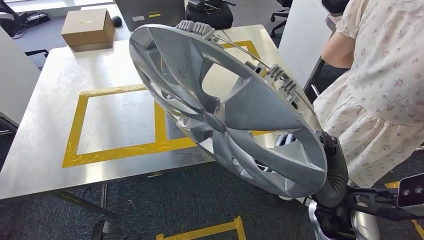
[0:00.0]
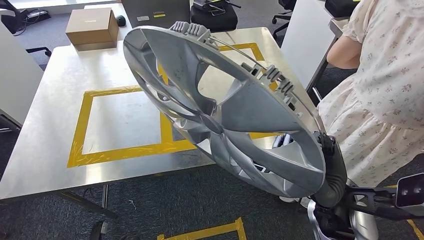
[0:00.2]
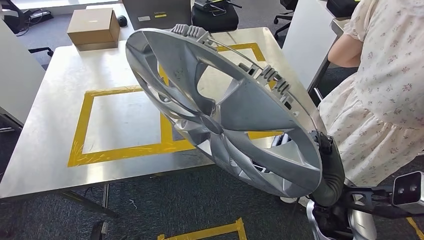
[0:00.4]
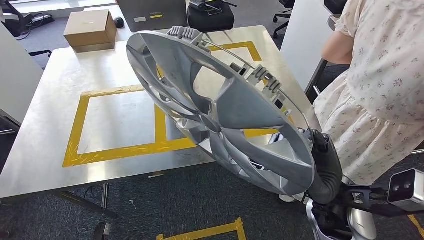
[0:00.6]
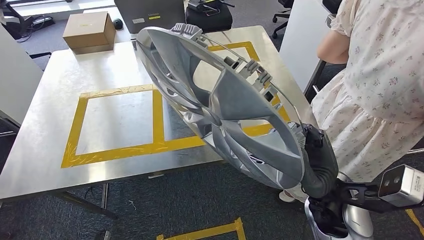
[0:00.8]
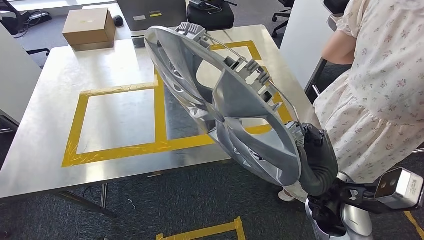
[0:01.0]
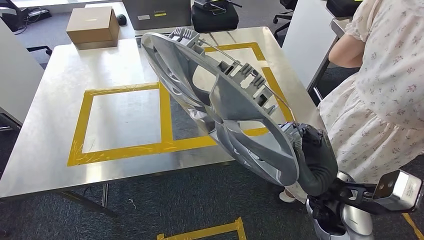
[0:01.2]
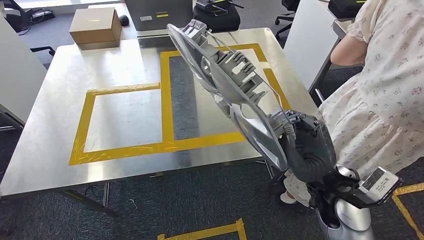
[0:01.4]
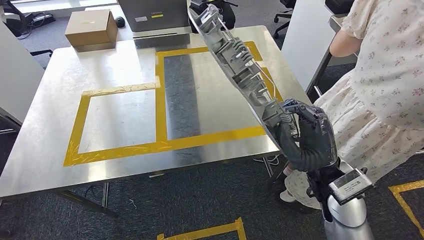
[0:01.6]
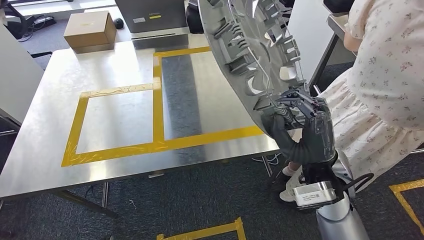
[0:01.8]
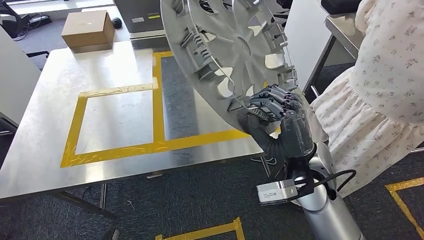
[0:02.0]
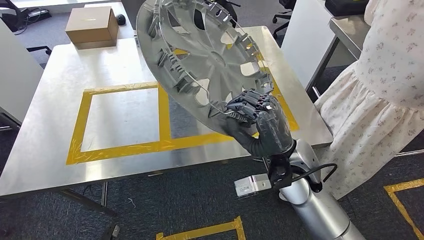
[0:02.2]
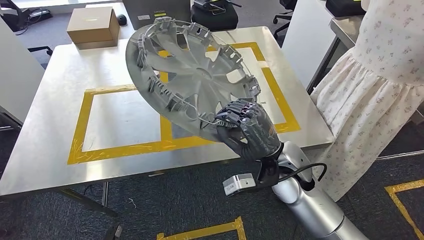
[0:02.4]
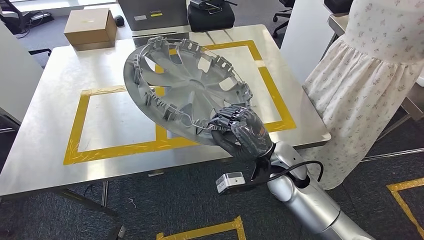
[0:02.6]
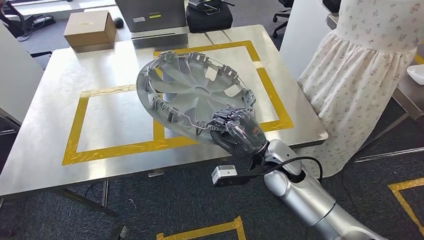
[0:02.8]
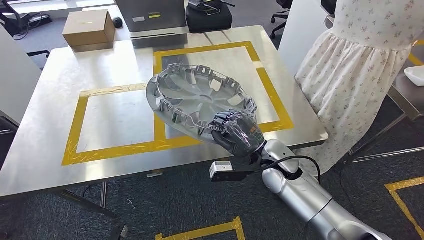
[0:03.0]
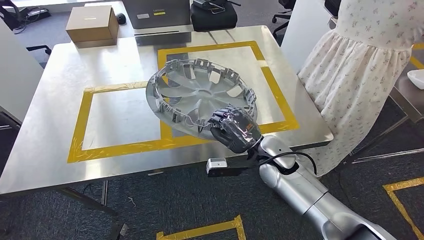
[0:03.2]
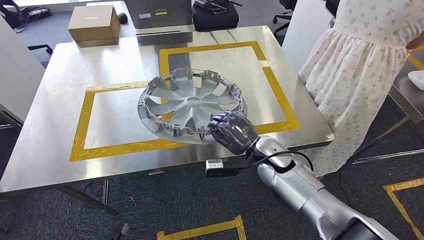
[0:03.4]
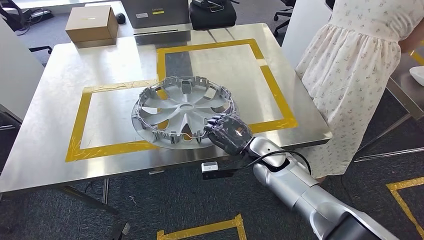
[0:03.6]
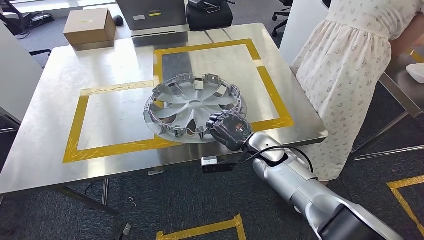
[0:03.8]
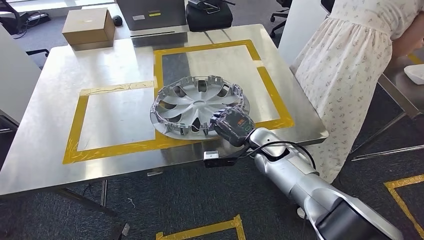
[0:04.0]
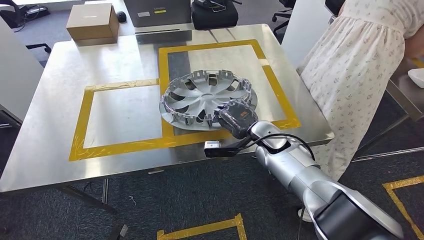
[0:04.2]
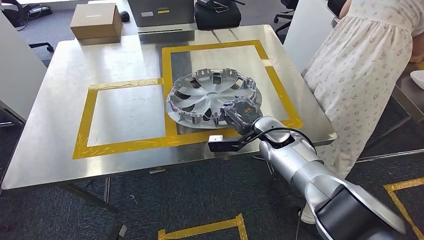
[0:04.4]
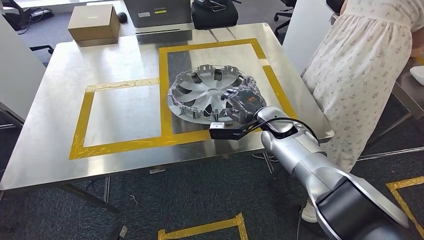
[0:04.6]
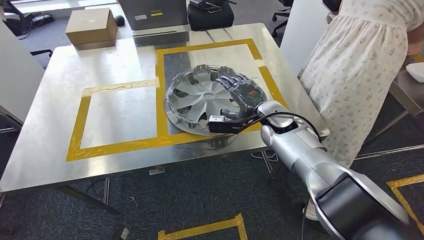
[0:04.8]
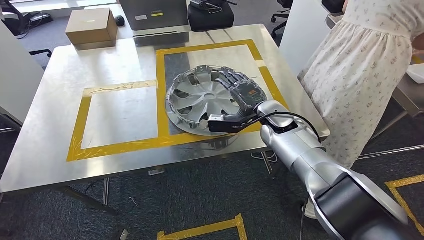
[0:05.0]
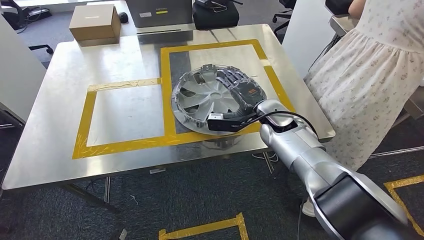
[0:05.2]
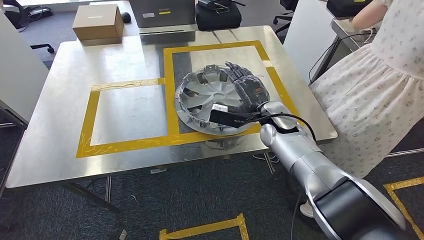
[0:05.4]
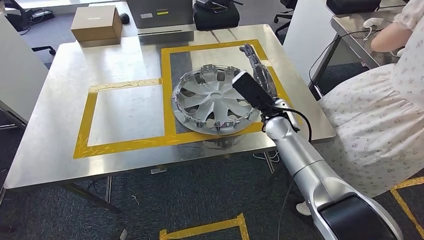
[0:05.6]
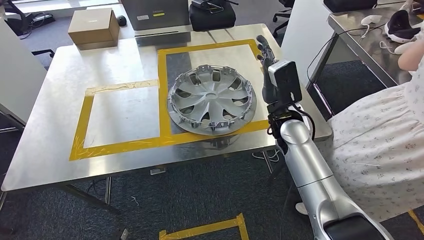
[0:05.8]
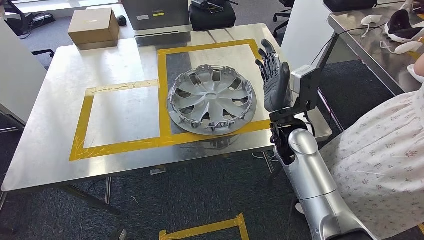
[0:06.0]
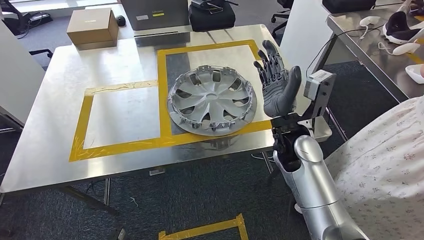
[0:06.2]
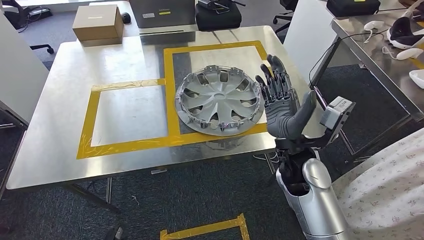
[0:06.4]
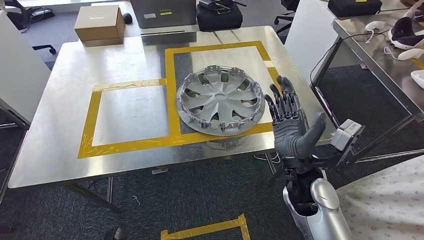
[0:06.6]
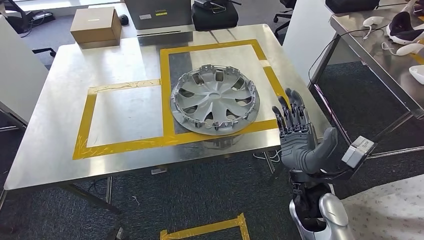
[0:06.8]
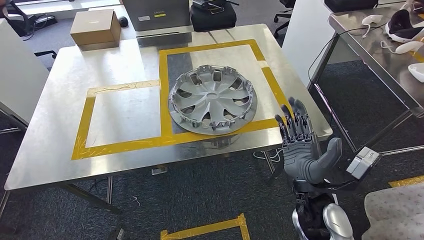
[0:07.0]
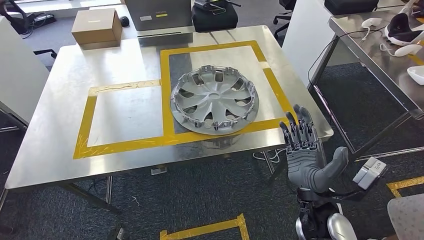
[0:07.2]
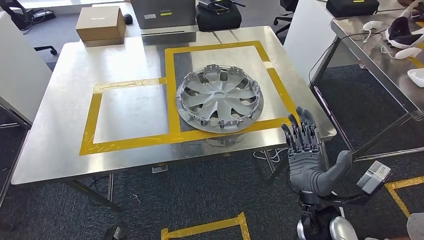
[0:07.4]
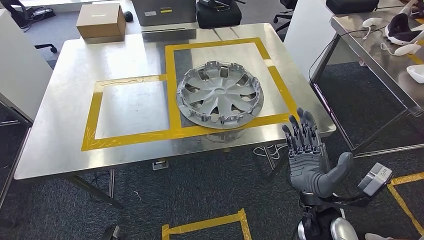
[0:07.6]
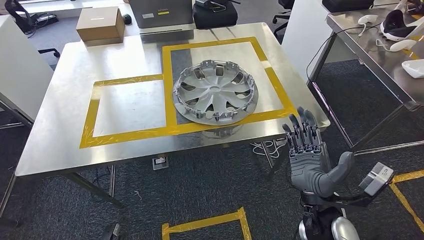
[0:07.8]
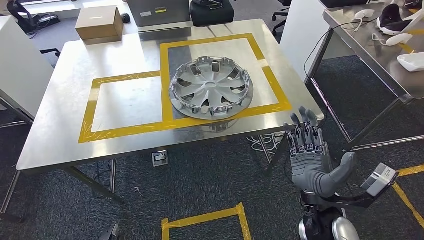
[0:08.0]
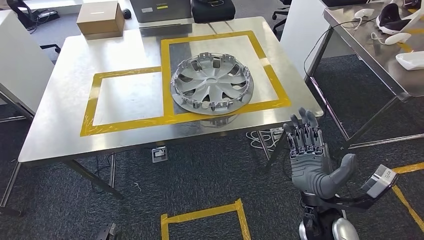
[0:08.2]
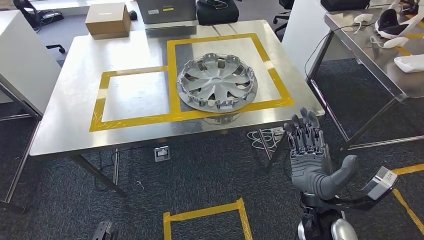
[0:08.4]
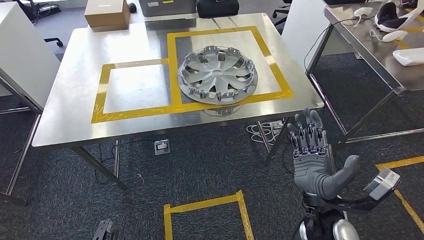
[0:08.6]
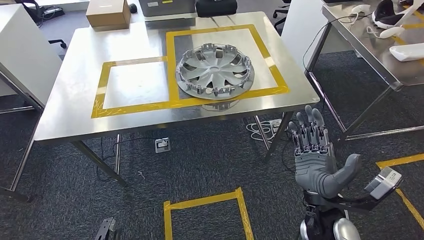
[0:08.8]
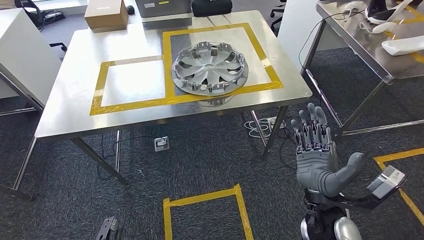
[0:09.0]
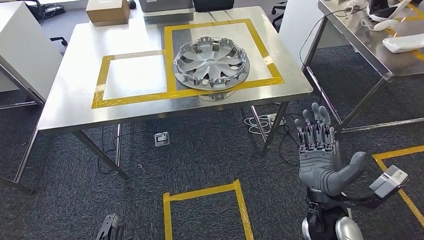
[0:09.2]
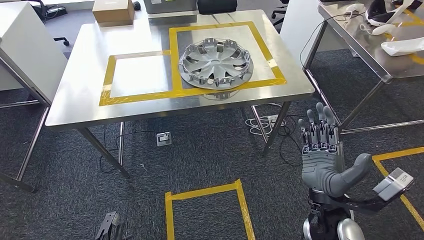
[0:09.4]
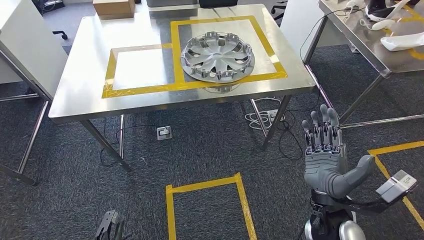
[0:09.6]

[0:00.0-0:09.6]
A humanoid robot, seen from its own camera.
Step, 0:01.2 to 0:07.4: Insert the small component into the corresponding slot on the workbench.

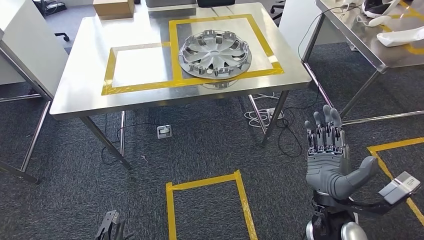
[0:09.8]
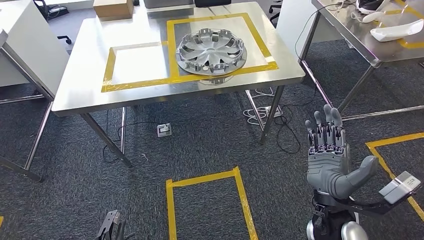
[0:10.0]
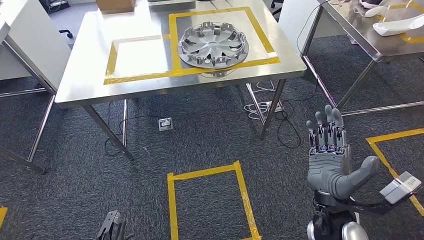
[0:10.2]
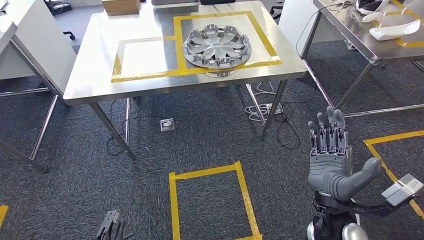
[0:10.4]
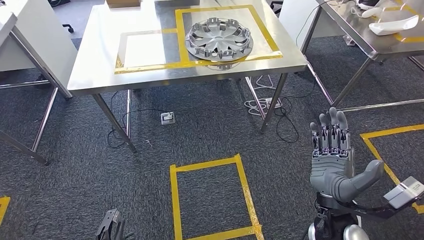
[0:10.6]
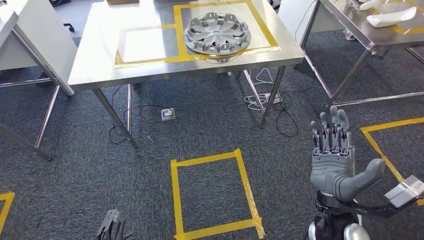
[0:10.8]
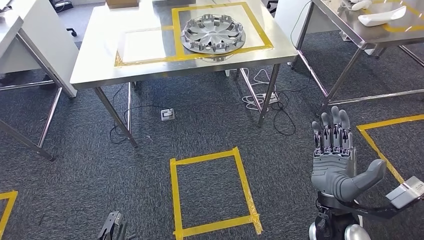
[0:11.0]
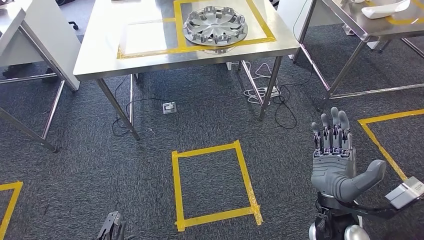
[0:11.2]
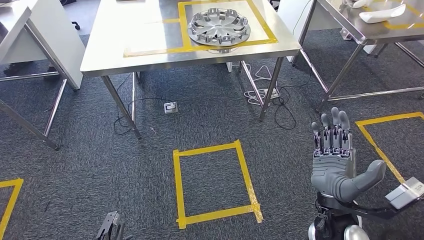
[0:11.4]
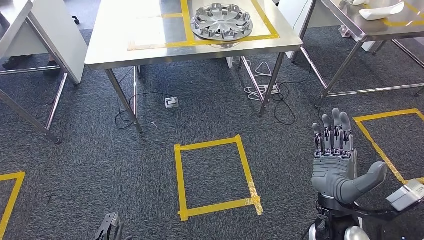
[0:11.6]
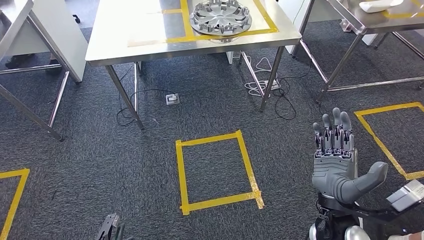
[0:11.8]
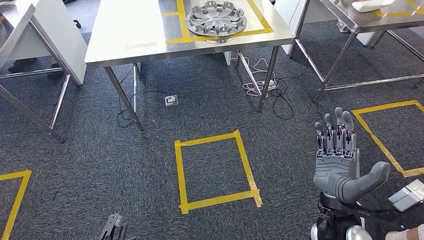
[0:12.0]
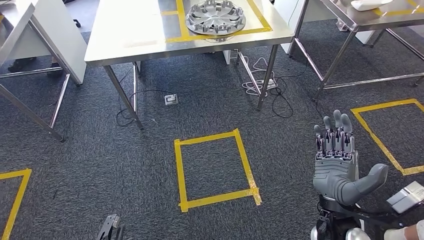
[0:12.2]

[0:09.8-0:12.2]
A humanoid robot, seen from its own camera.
Step, 0:09.8 to 0:12.2: Return to the initial position at the workbench.

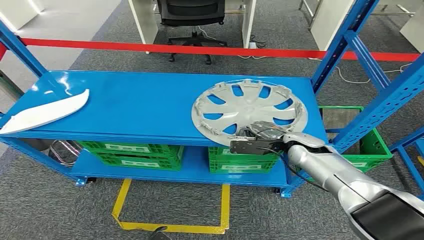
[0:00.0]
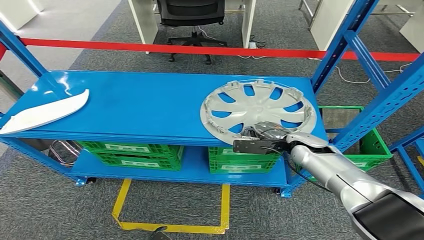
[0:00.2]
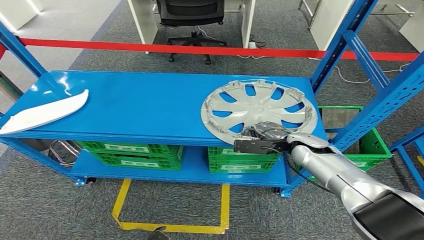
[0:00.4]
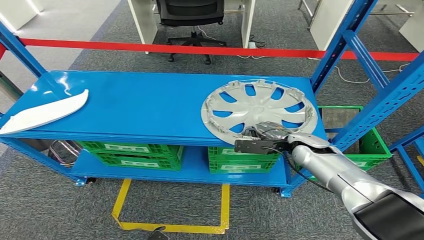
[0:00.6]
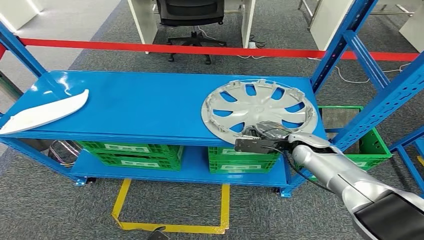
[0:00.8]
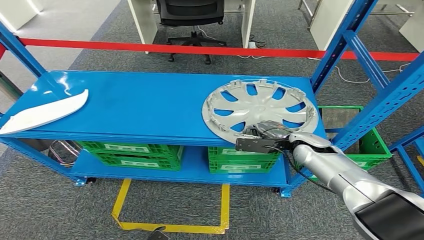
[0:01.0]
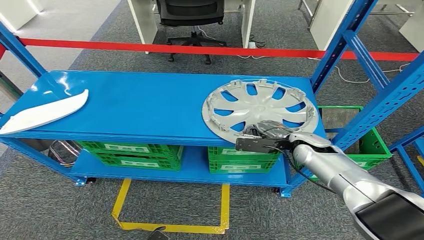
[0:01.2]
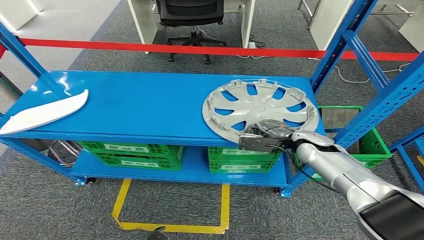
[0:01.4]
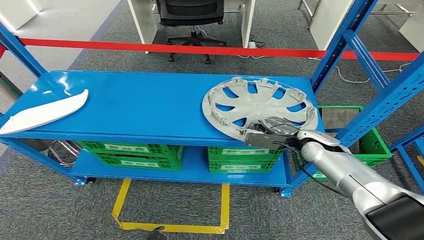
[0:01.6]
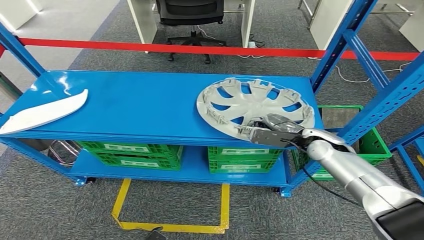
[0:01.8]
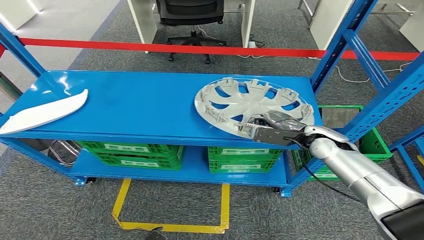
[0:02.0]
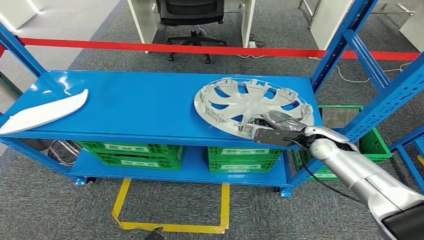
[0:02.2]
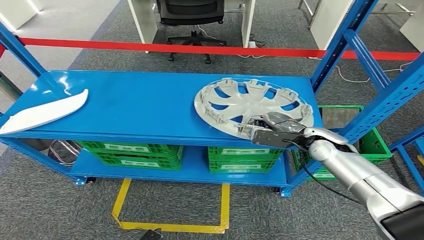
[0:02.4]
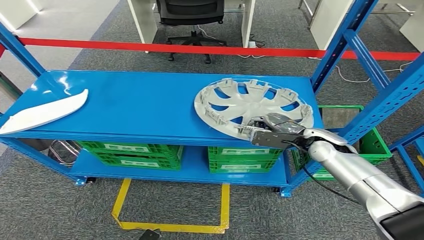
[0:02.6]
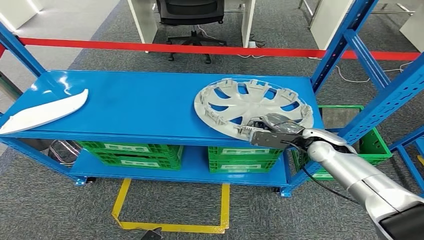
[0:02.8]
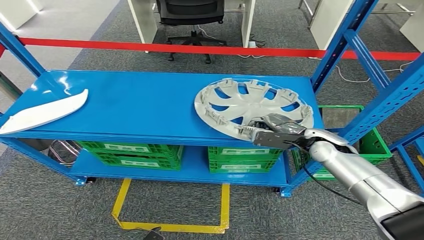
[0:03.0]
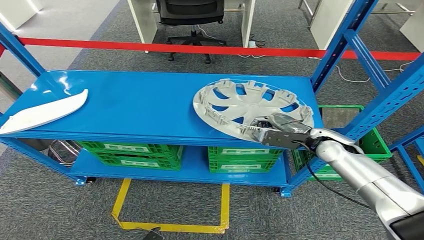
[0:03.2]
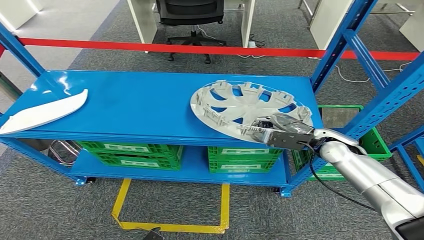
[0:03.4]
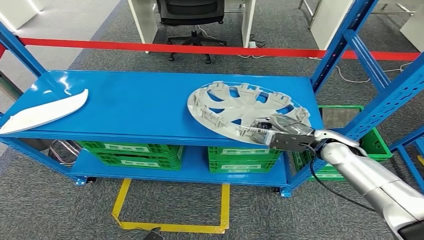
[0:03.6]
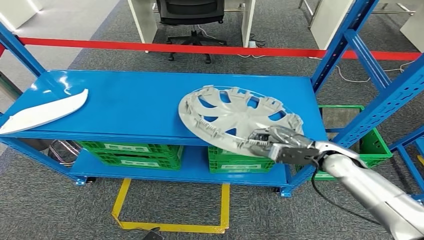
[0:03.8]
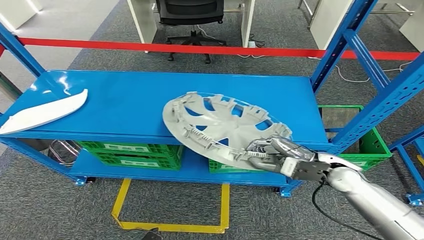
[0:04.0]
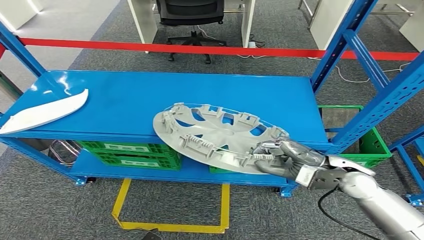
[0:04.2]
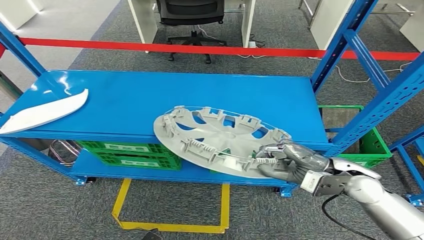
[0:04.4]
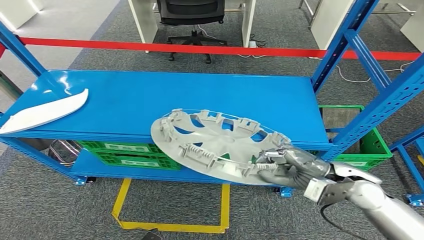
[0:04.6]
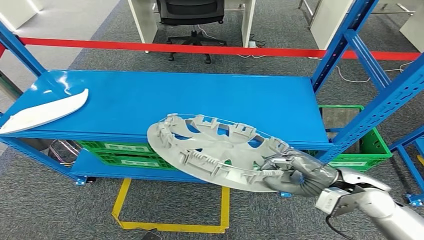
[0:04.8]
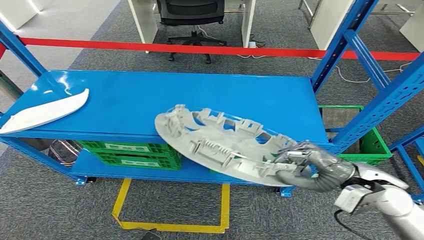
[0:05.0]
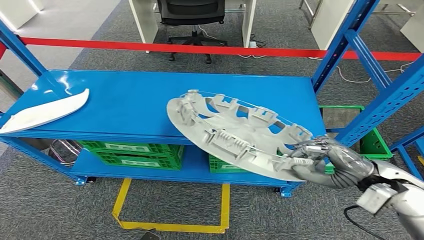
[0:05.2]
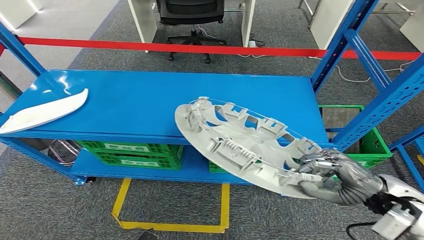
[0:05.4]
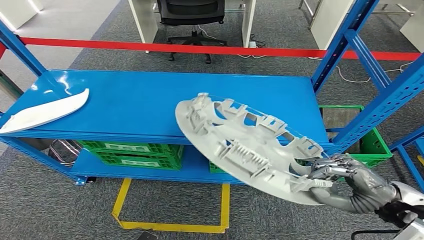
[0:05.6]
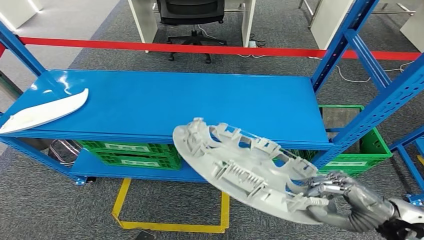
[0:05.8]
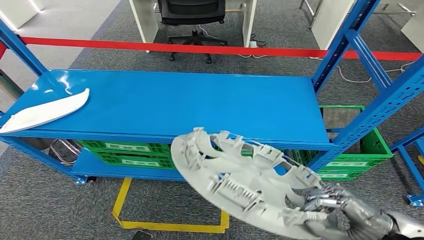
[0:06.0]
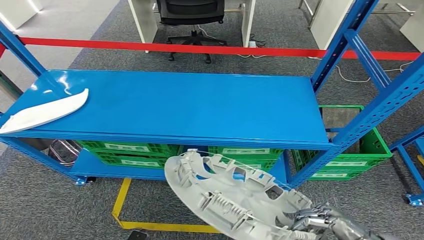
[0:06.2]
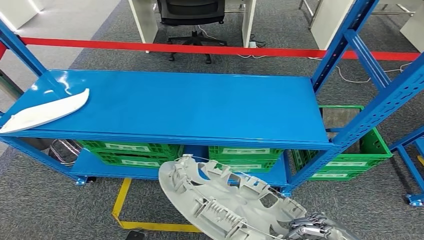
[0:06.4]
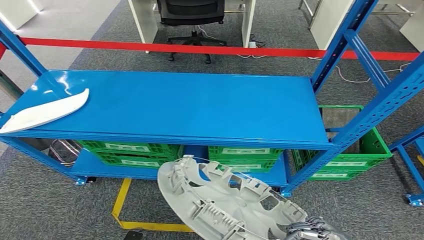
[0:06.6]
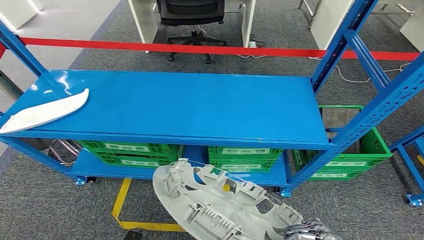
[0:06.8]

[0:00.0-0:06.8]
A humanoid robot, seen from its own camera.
0:01.4 to 0:02.8: The hands make only small movements.
0:02.8 to 0:04.0: The right hand heads backward, covering roughly 10 cm.
0:04.0 to 0:05.4: The right hand heads backward and to the right, covering approximately 10 cm.
